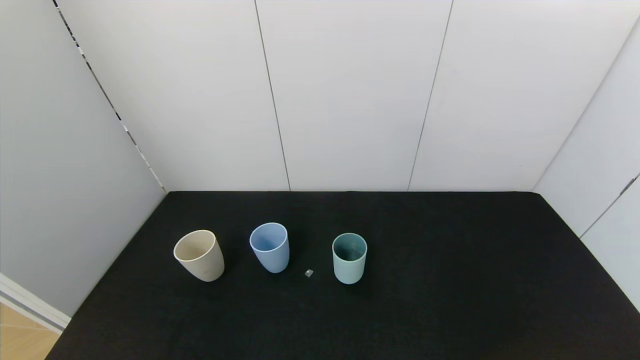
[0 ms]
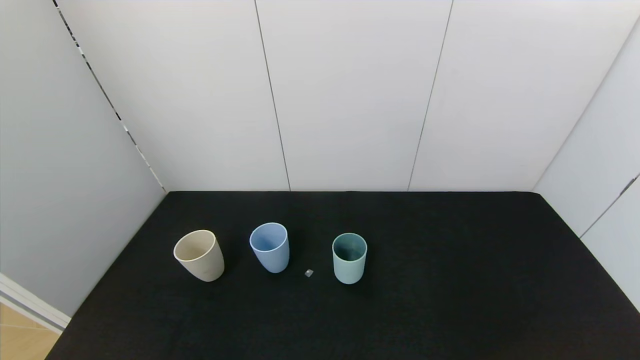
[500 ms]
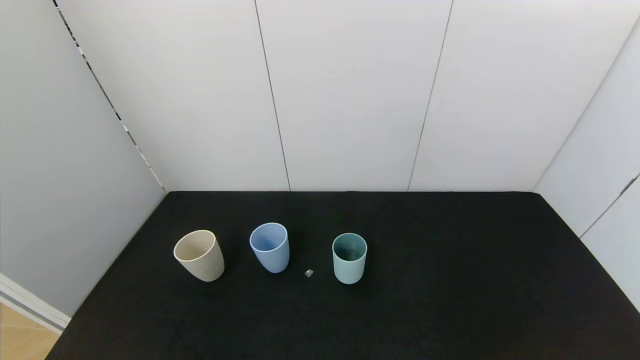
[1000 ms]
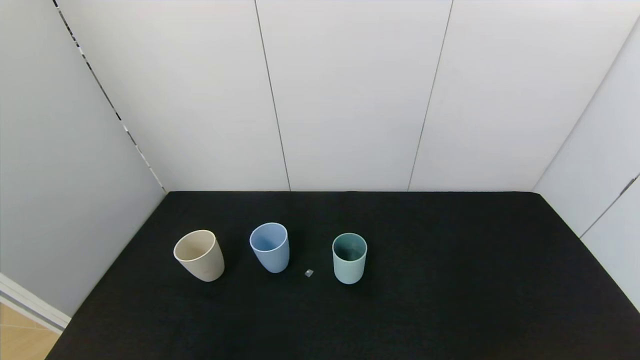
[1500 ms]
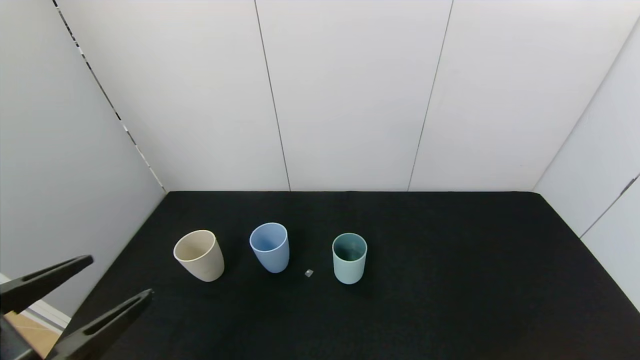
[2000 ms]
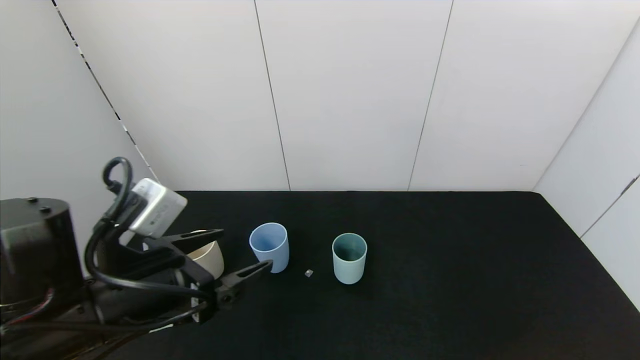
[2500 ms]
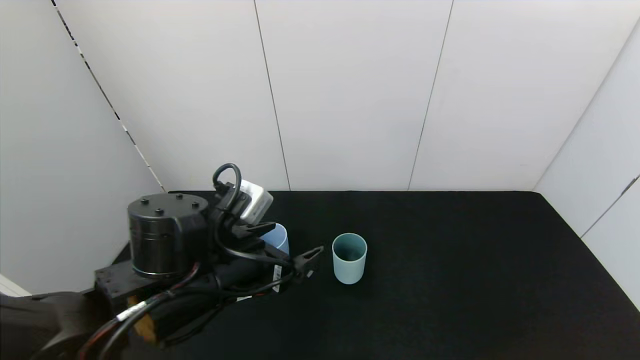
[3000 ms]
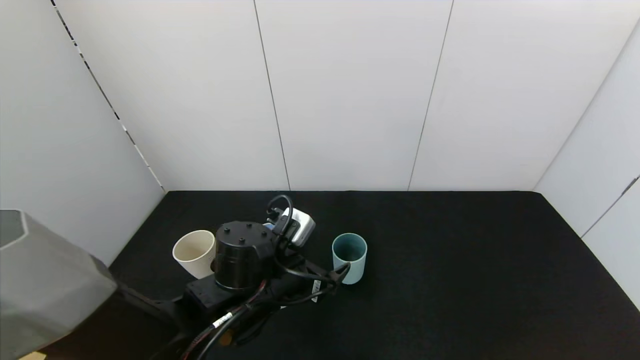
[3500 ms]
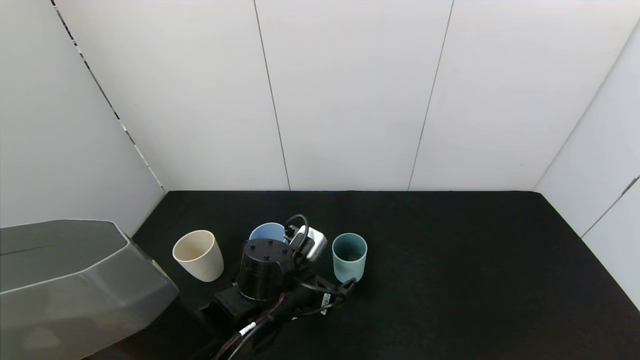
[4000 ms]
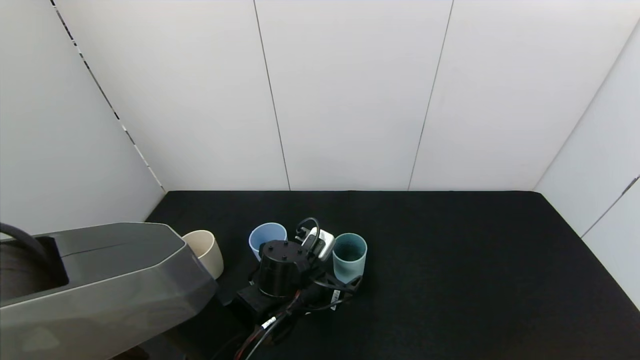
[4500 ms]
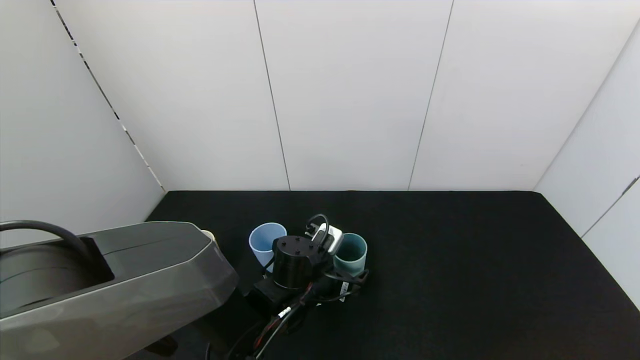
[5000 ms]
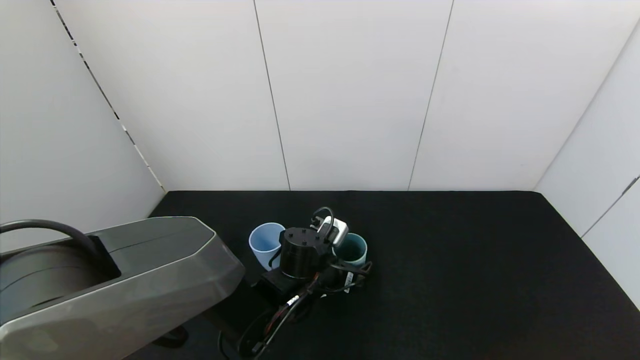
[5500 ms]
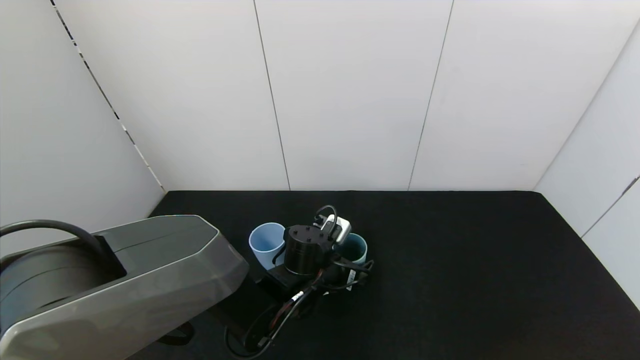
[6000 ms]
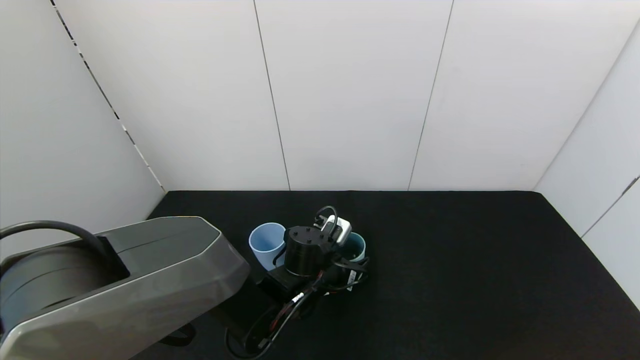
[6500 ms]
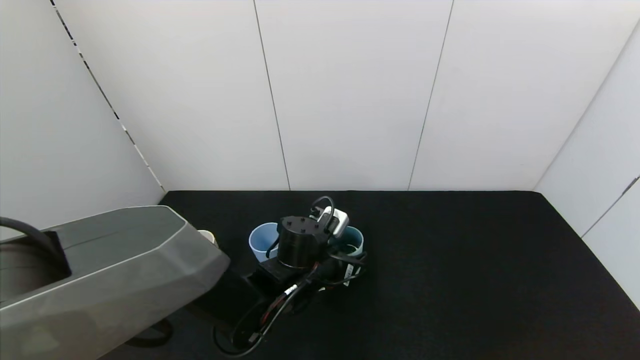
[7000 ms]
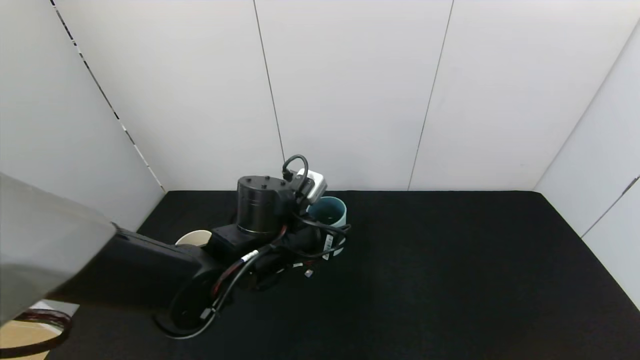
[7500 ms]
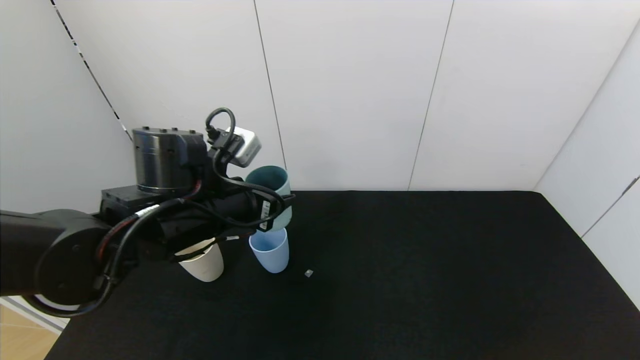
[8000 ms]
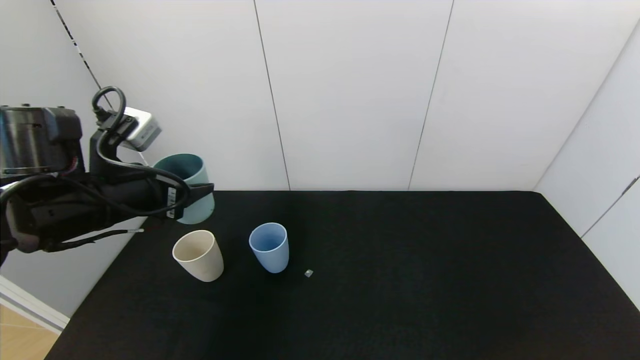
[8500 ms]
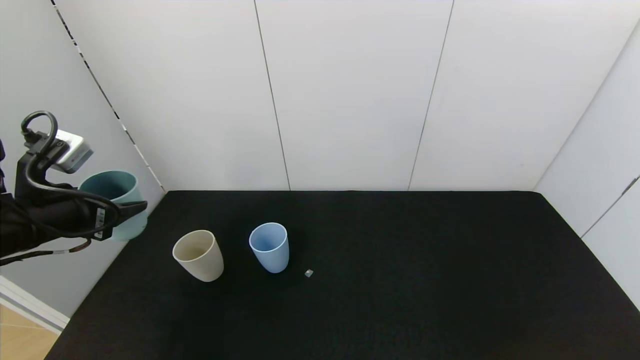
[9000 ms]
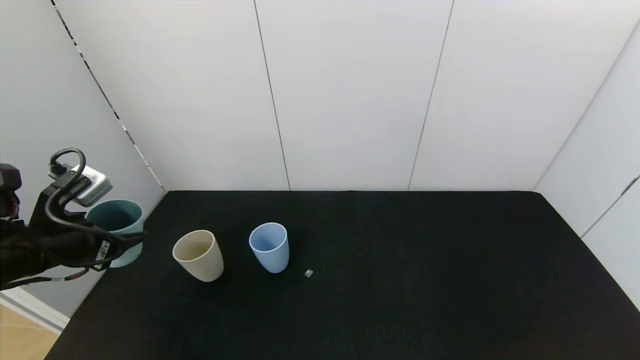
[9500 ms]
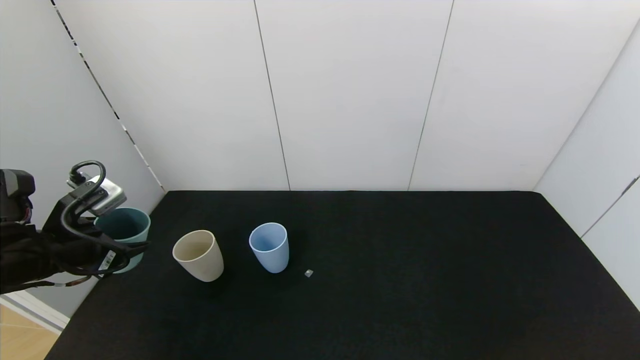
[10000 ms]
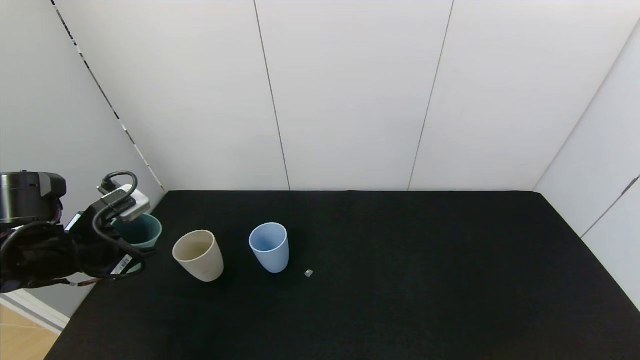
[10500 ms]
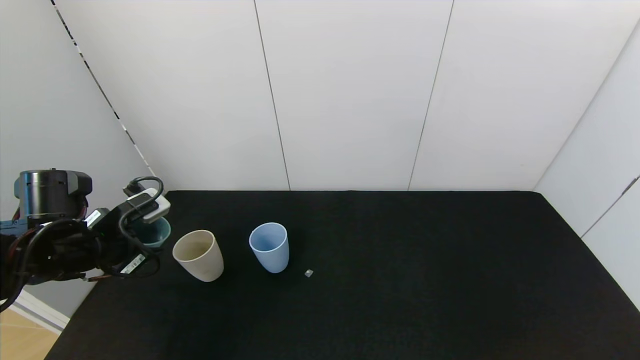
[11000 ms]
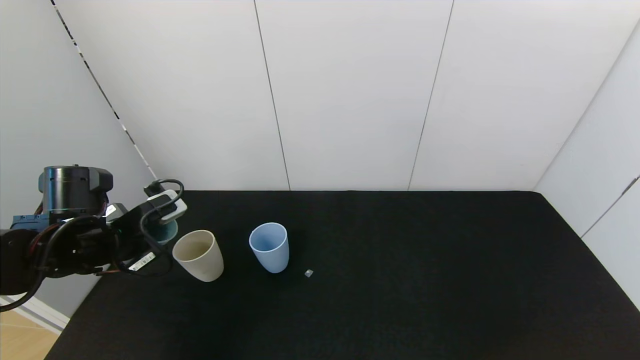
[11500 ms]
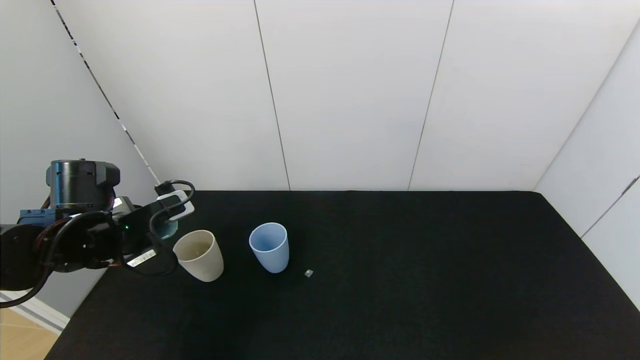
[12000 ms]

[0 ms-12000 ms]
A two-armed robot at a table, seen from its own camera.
Task of the whole recording: use the gripper to pour the water into the other two cups on black table.
Step, 0 ms to 6000 ms: Grasp the green cup with the left gripper.
0 ms to 2000 ms: The left gripper shifts roughly 15 cm upward and forward.
2000 ms to 4000 ms: The left gripper moves to the right, forward and downward, about 30 cm.
4000 ms to 6000 ms: The left gripper shifts roughly 5 cm forward.
6000 ms to 8000 ms: The left gripper is displaced upward and to the left by some 20 cm, and closes.
8000 ms to 10000 ms: The left gripper heads to the left, covering roughly 20 cm.
10000 ms to 12000 ms: The left gripper changes place by about 5 cm.

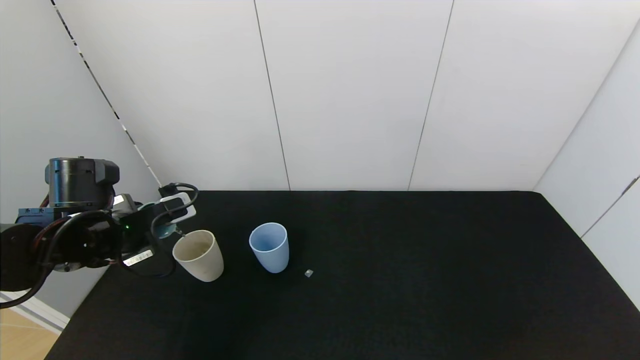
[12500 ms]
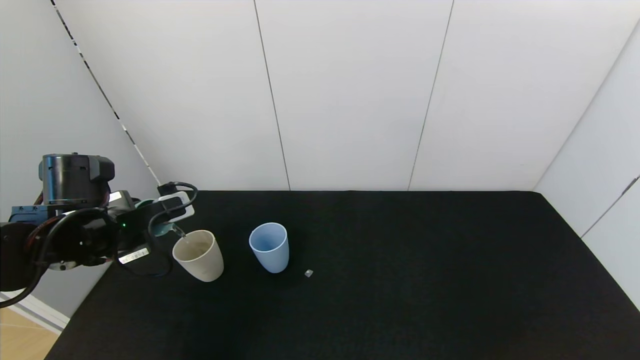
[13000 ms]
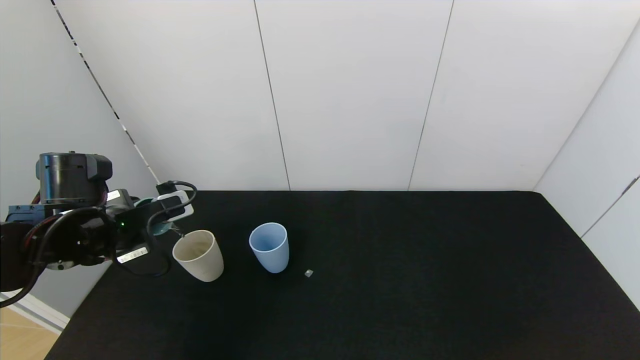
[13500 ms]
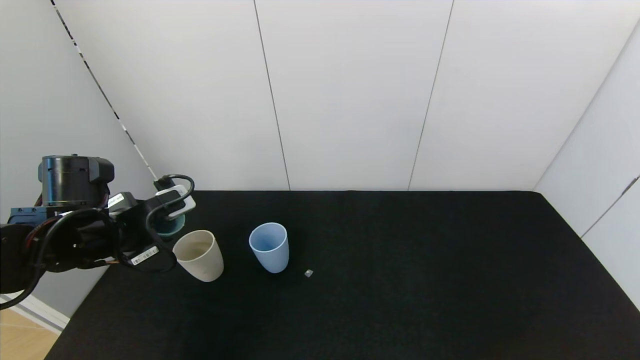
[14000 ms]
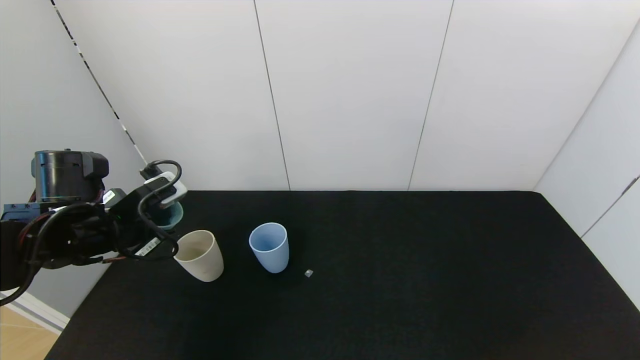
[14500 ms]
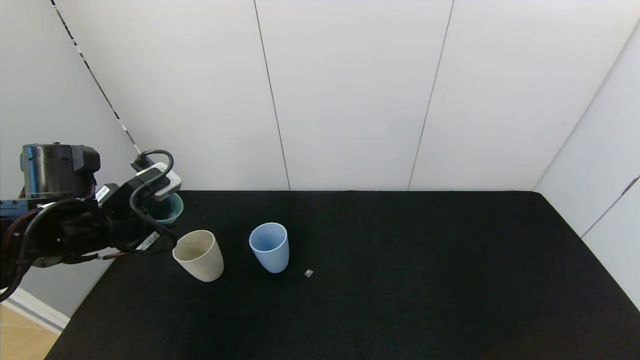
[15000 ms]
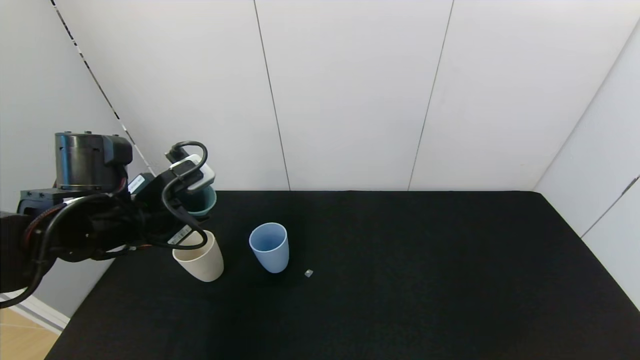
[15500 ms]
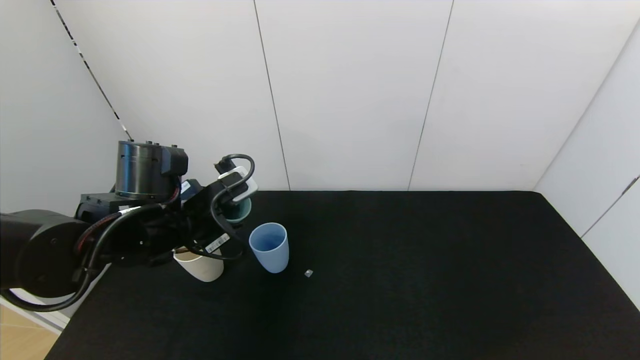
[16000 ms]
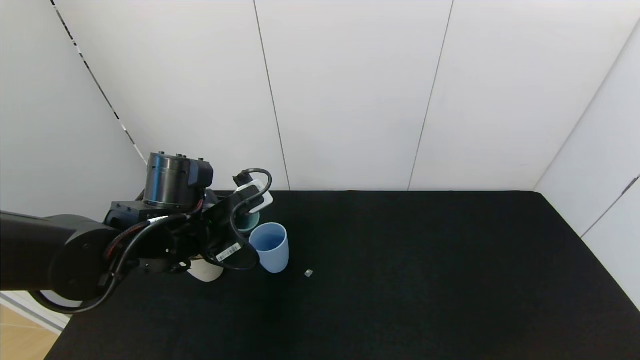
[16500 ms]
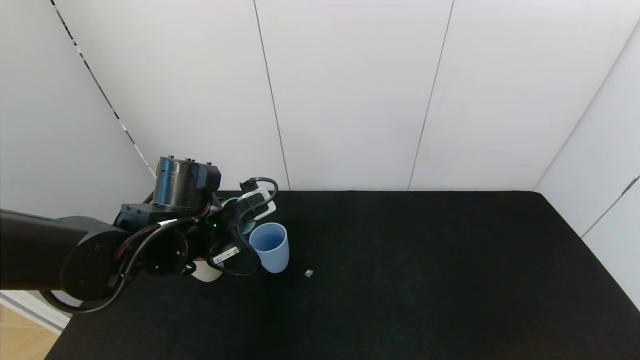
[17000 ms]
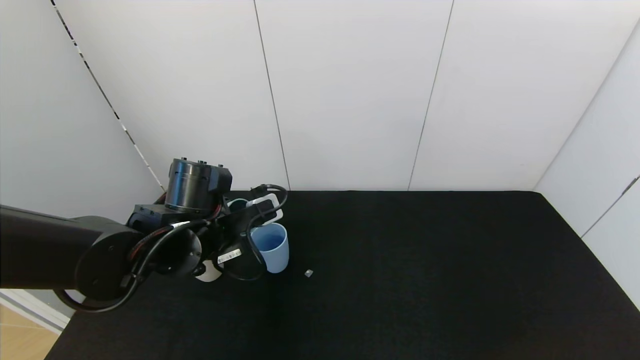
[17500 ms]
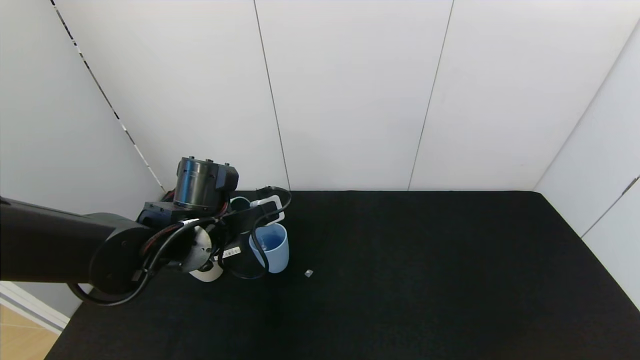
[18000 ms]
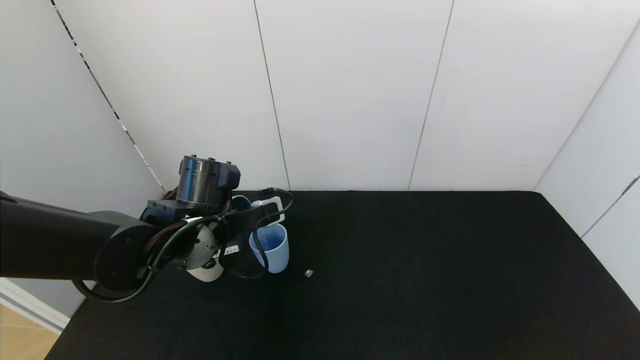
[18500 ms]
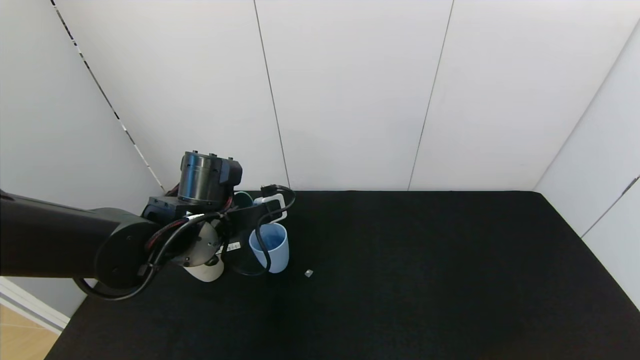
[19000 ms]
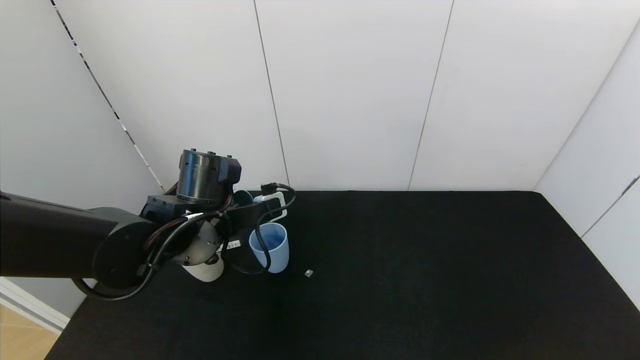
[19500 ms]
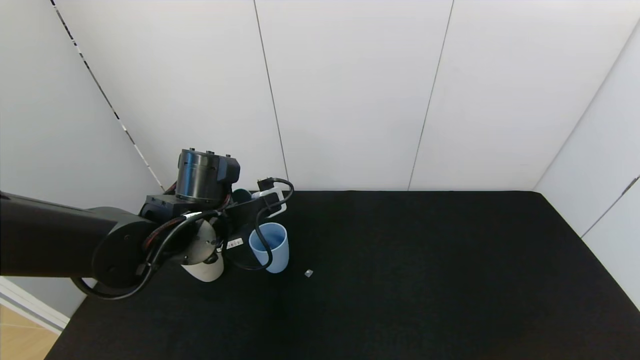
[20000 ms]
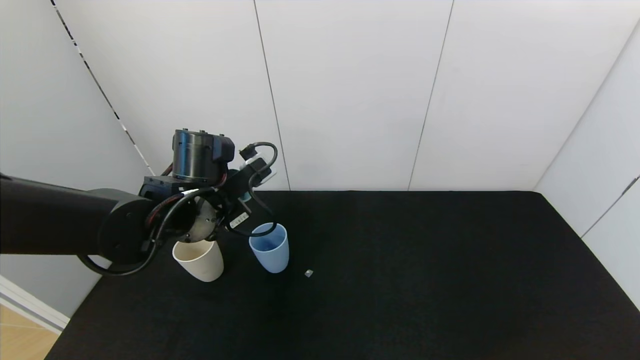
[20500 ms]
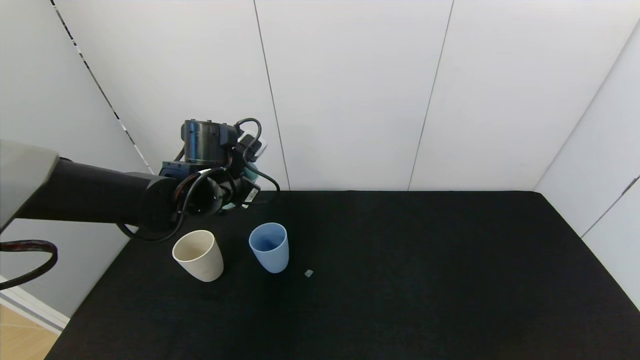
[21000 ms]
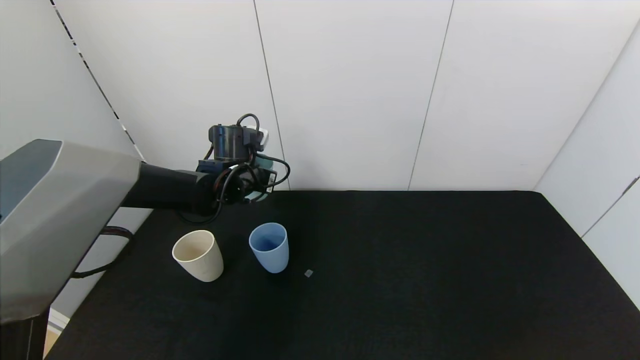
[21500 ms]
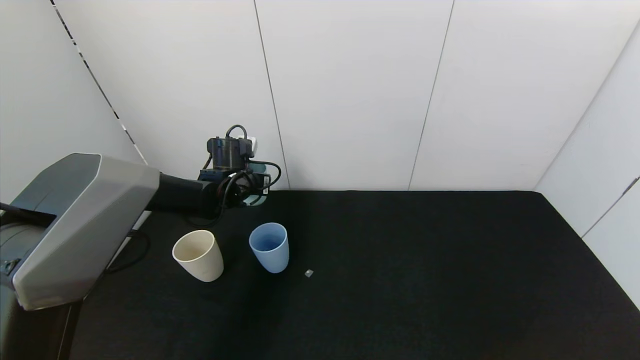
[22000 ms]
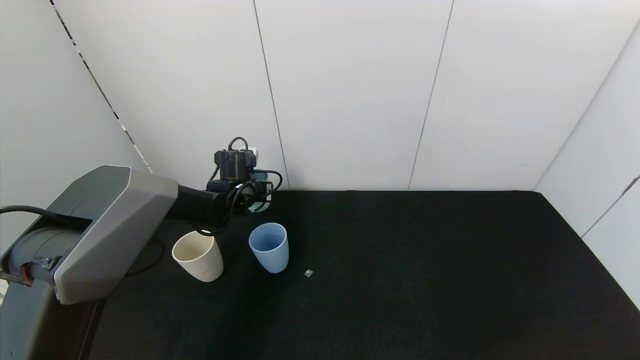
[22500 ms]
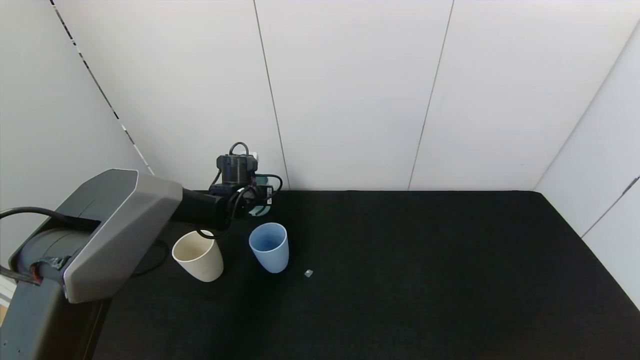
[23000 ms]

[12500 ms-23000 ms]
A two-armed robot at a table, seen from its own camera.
Task of the whole recording: use the gripper to pour the water into the other two cups on black table.
Step, 12500 ms to 14500 ms: Pour water from green cup to white cup with the left gripper.
Step, 15000 ms to 20500 ms: Pour water from green cup to blue cup with the left gripper.
12500 ms to 14500 ms: There are only small adjustments of the grippers.
14500 ms to 16500 ms: The left gripper goes roughly 10 cm to the right.
19000 ms to 21000 ms: The left gripper heads forward, covering some 10 cm.
21000 ms to 23000 ms: The left gripper goes about 15 cm forward and downward.
